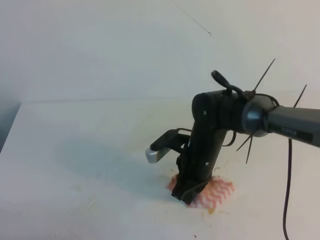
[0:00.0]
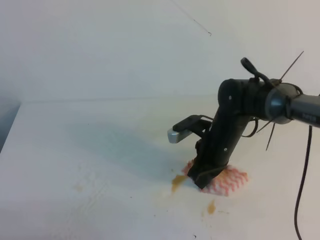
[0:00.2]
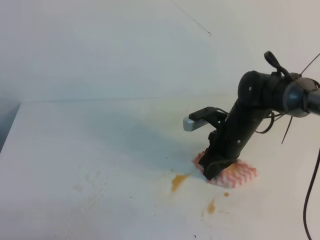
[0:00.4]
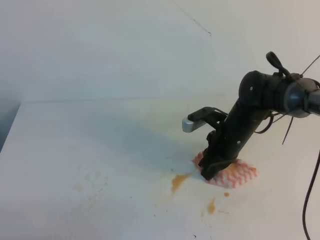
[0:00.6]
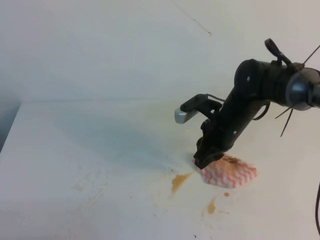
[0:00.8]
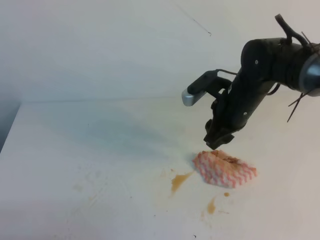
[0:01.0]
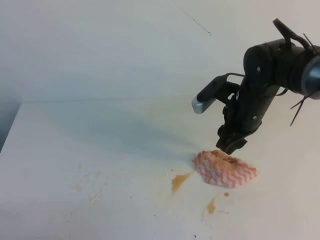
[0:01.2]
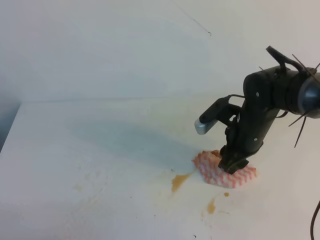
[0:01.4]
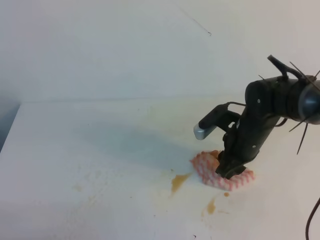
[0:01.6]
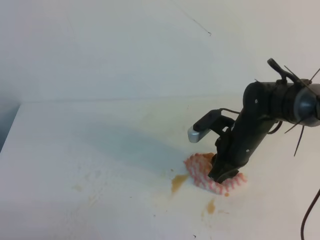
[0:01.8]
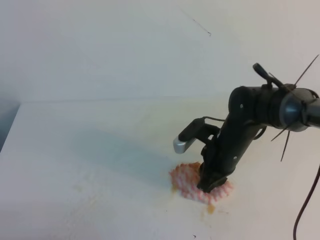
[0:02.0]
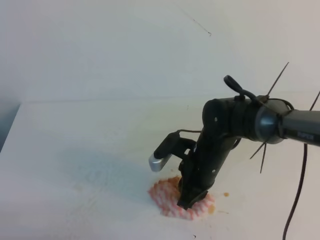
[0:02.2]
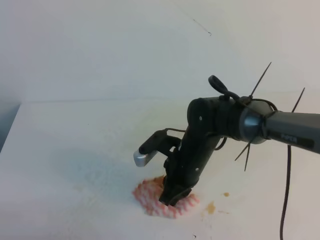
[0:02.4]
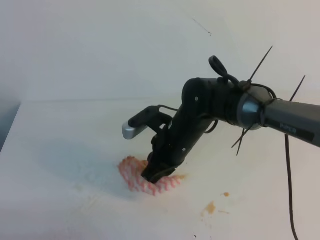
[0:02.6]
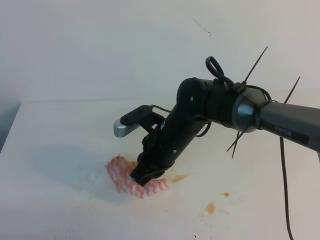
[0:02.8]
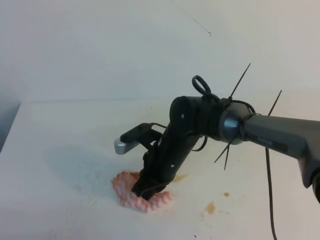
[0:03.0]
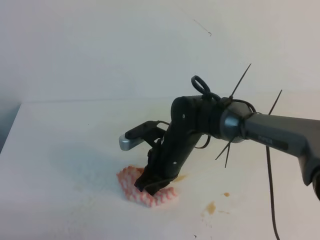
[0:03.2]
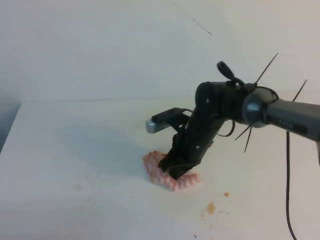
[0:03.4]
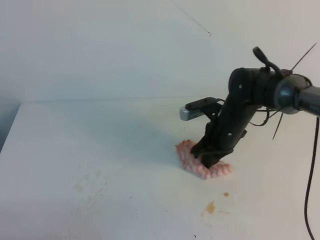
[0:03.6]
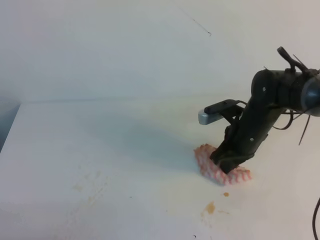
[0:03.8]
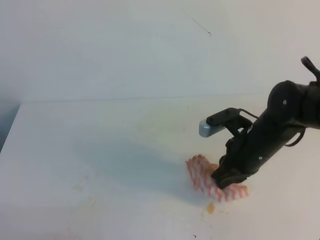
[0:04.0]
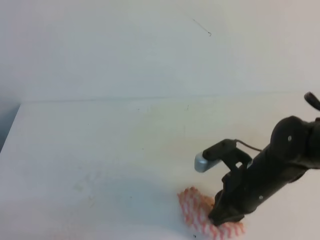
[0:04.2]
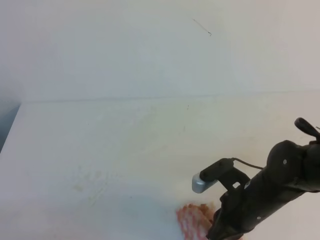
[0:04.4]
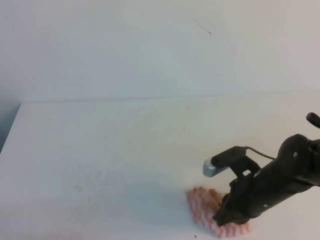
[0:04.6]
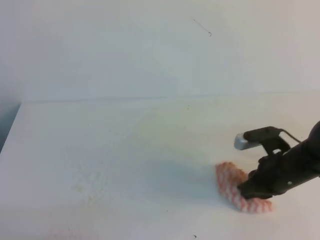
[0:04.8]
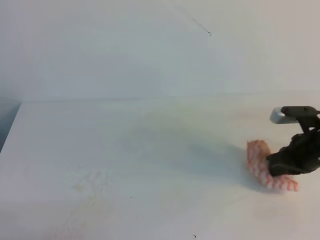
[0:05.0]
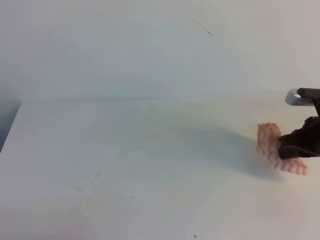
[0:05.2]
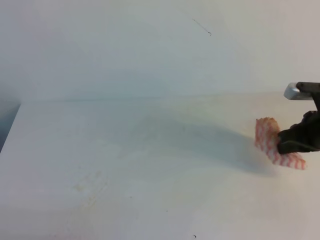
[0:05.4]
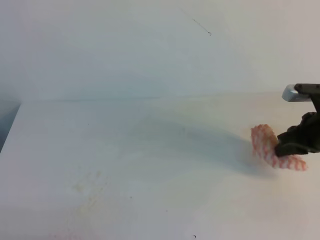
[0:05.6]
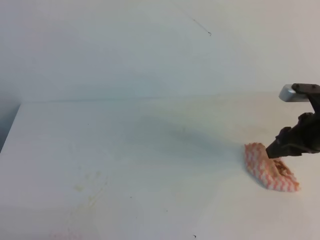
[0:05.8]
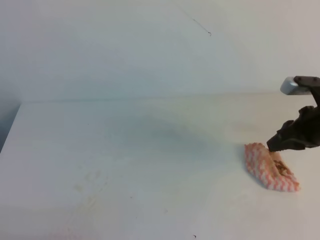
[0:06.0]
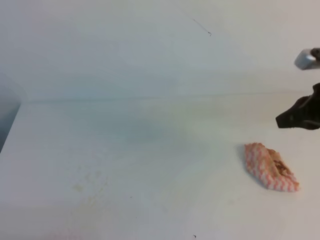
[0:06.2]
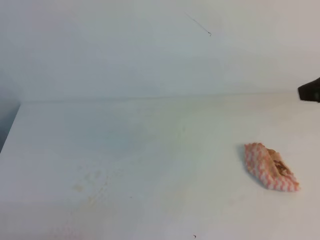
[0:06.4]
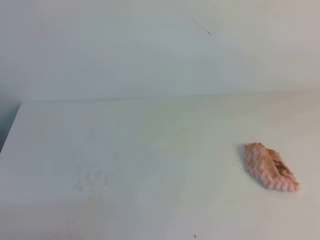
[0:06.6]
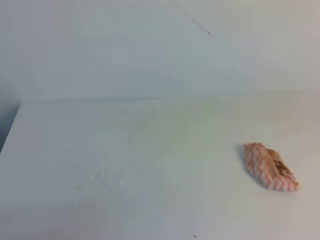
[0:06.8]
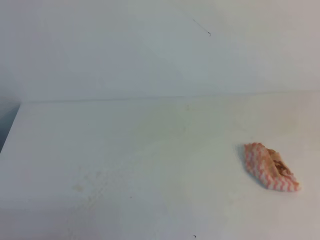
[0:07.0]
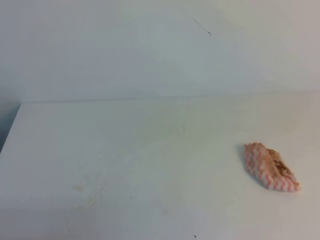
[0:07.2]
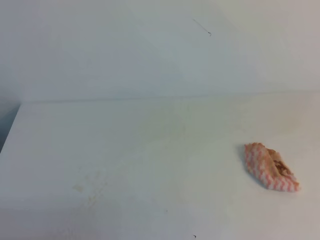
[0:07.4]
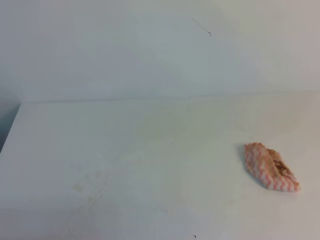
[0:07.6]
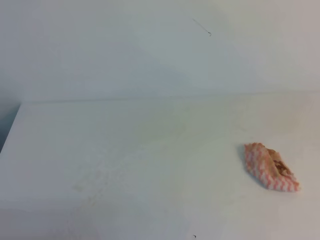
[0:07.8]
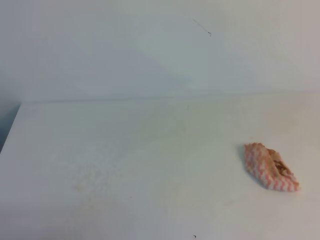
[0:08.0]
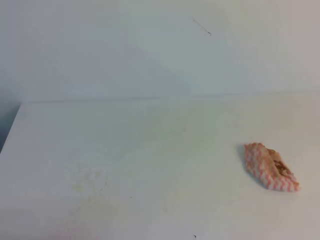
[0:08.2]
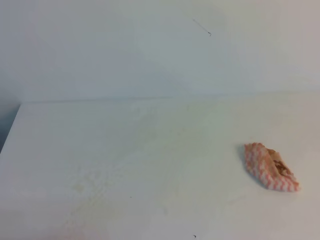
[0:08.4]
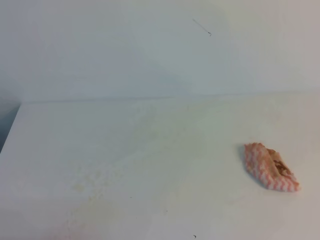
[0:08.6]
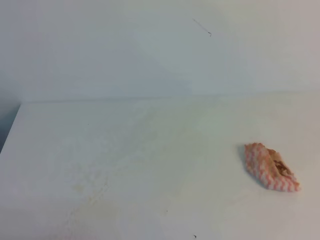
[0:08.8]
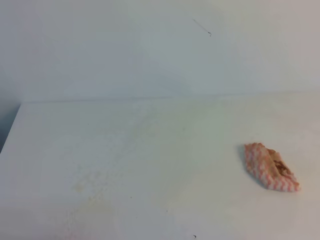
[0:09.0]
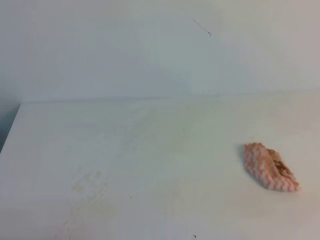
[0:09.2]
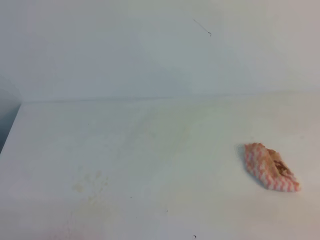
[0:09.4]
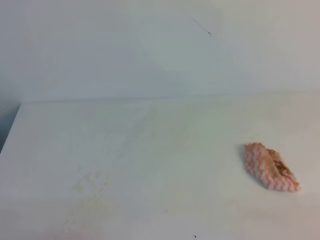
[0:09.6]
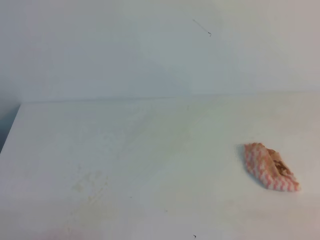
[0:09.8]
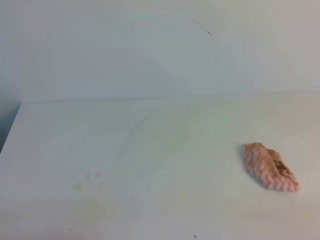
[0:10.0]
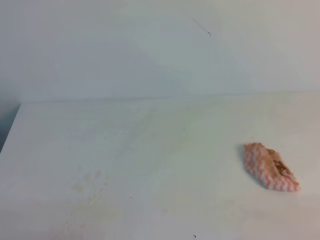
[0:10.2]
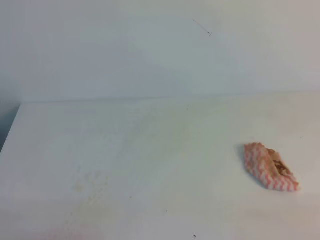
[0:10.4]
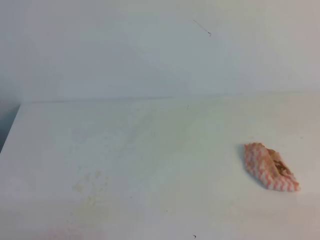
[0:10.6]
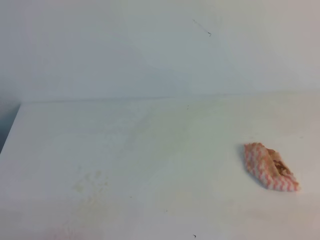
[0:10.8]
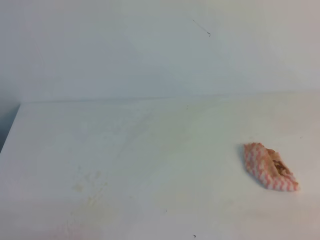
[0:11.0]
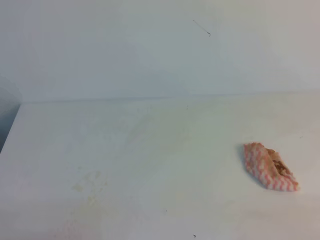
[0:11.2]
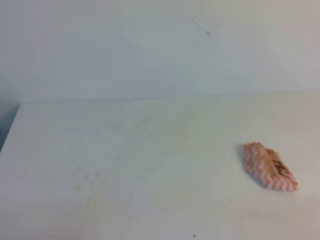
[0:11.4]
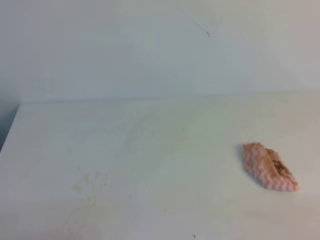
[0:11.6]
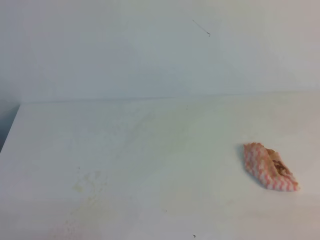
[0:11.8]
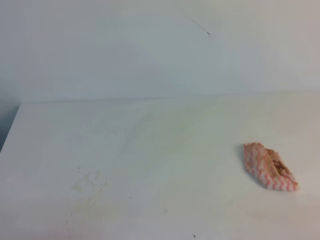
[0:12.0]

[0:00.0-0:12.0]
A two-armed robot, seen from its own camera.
0:00.0 to 0:01.6: The right gripper heads to the right, covering about 10 cm, and opens.
0:01.6 to 0:03.0: The right gripper shifts approximately 15 cm to the left, and closes its fingers.
0:03.0 to 0:04.4: The right gripper is displaced to the right and backward by roughly 15 cm.
0:04.4 to 0:06.0: The right gripper moves to the right, forward and upward, some 20 cm, and opens its fingers.
0:06.0 to 0:07.6: The right gripper shifts roughly 25 cm backward and upward, and closes its fingers.
0:10.4 to 0:12.0: The two grippers keep their place.

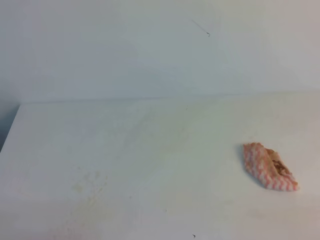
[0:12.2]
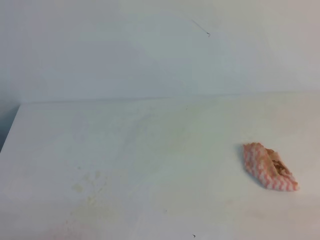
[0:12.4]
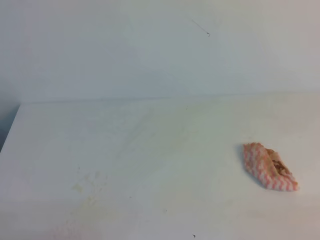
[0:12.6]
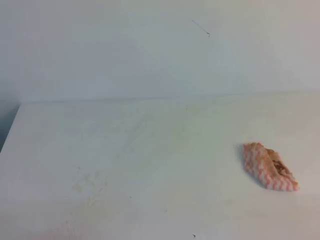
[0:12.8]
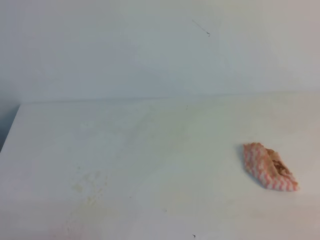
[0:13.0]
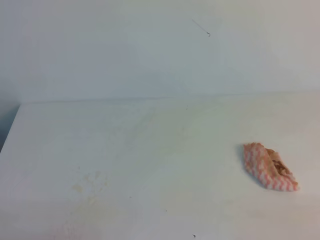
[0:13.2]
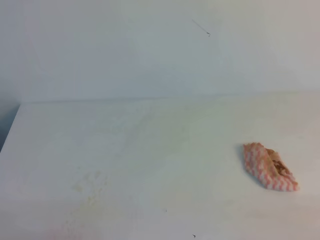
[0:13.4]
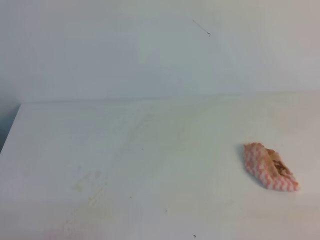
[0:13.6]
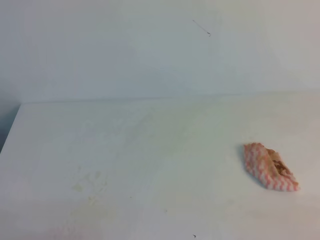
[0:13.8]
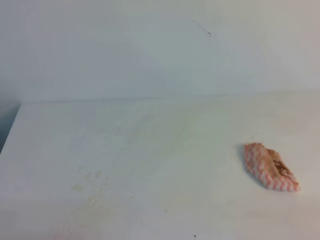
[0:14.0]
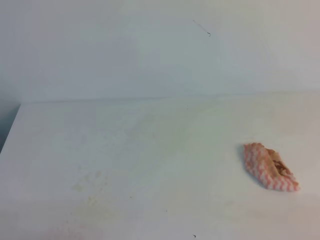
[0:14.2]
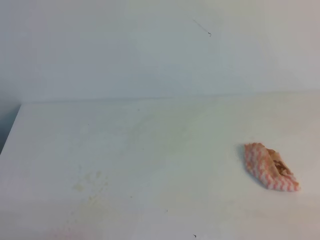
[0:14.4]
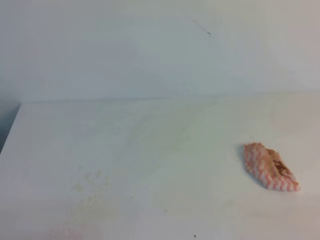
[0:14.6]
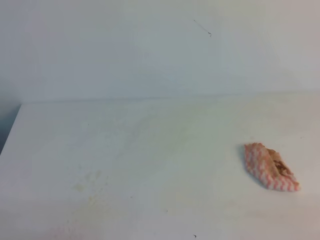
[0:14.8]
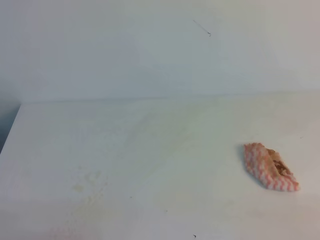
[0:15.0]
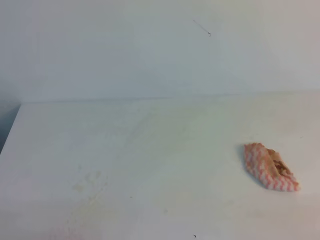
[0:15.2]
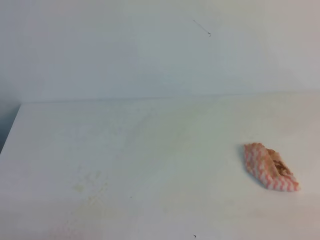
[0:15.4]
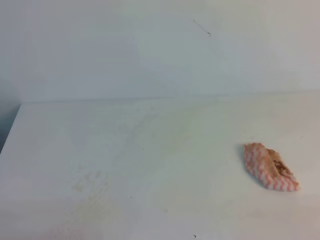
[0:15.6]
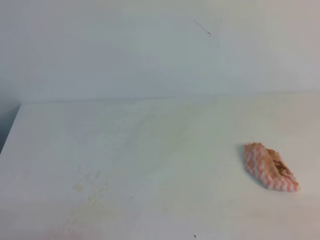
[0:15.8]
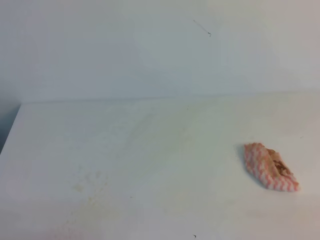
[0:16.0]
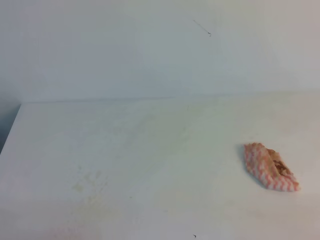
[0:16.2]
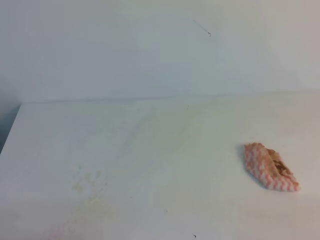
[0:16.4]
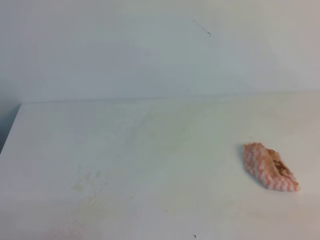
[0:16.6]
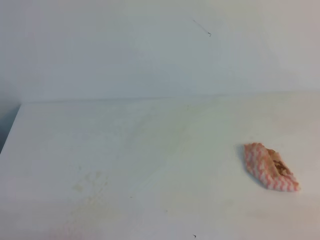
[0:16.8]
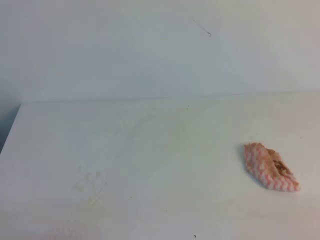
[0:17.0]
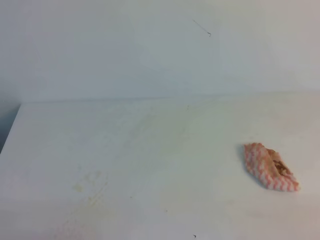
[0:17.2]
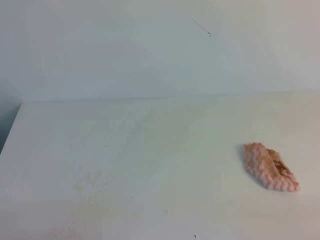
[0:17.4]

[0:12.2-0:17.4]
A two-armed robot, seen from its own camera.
0:12.2 to 0:17.4: Neither gripper changes place.
